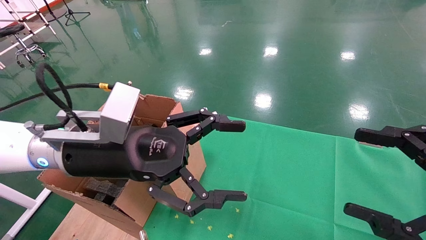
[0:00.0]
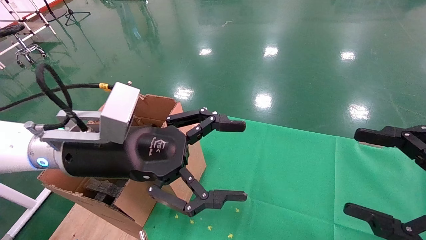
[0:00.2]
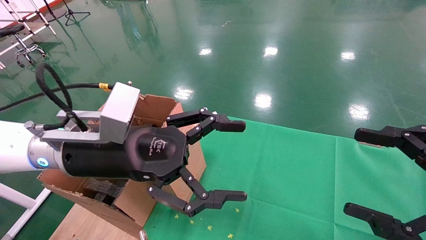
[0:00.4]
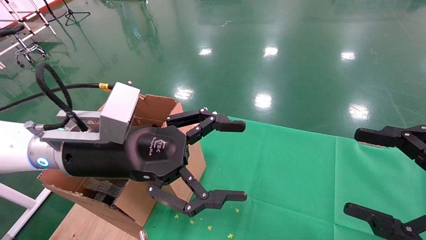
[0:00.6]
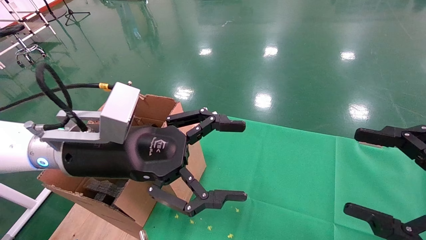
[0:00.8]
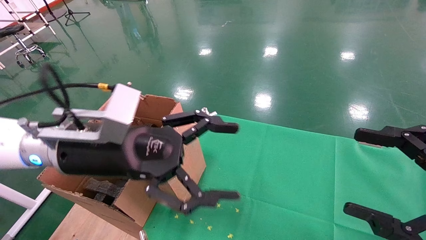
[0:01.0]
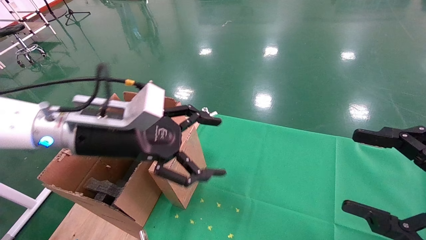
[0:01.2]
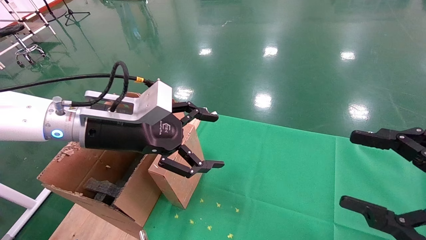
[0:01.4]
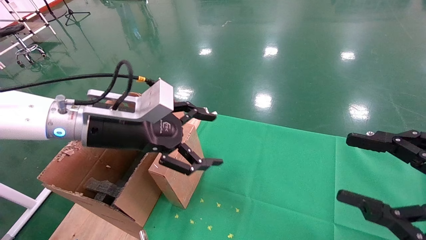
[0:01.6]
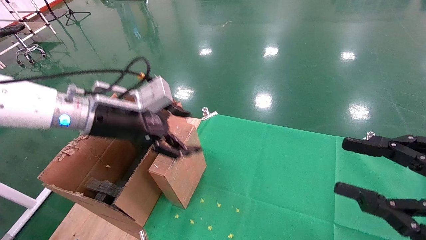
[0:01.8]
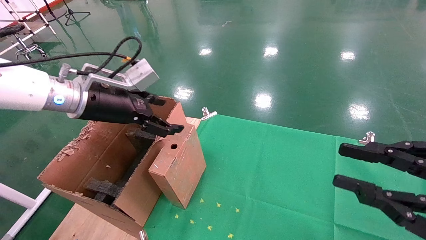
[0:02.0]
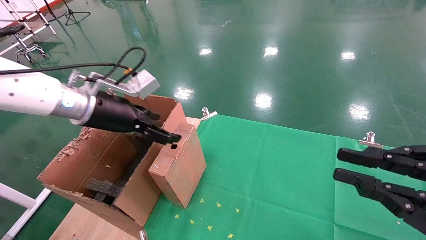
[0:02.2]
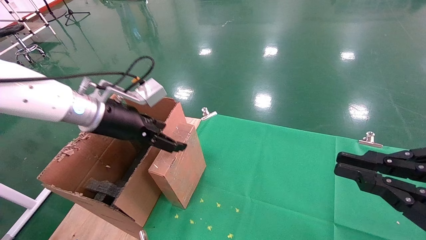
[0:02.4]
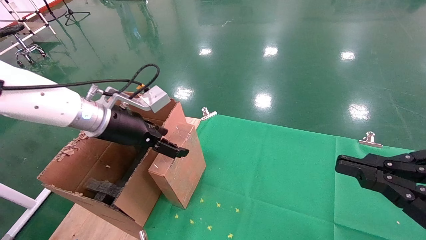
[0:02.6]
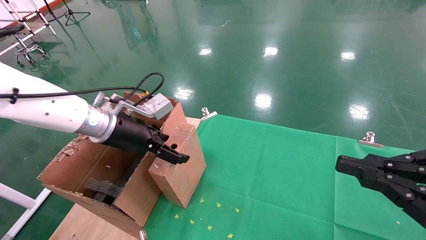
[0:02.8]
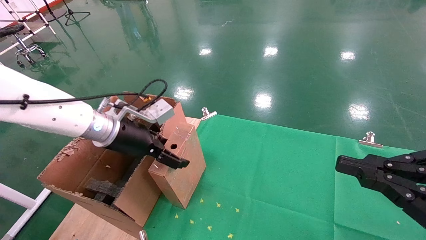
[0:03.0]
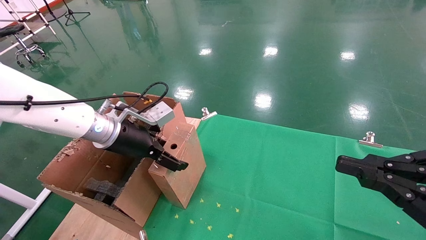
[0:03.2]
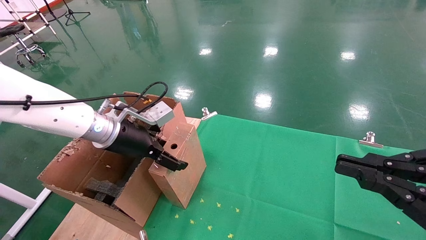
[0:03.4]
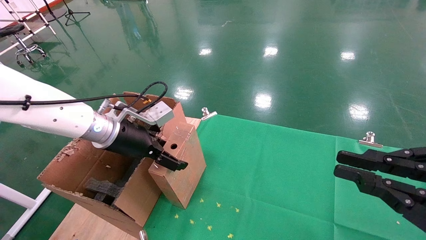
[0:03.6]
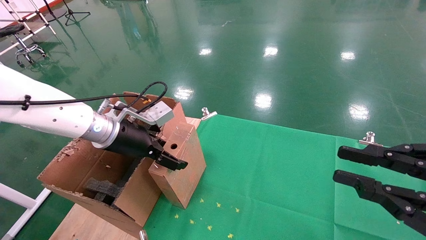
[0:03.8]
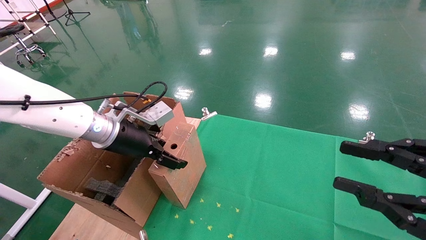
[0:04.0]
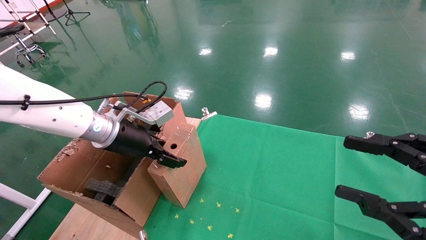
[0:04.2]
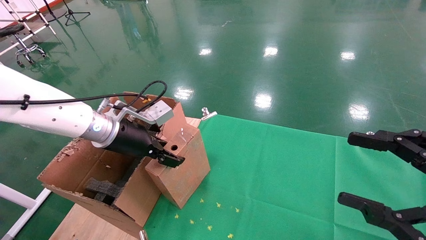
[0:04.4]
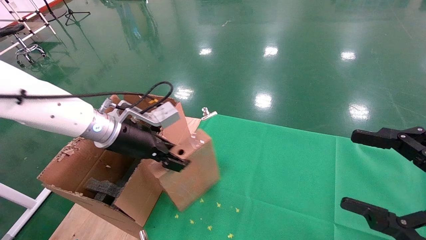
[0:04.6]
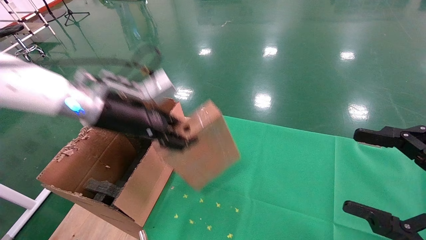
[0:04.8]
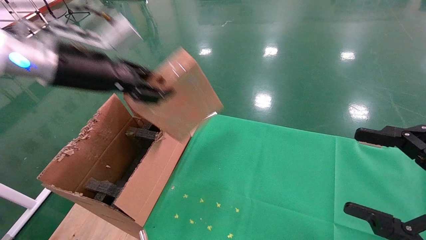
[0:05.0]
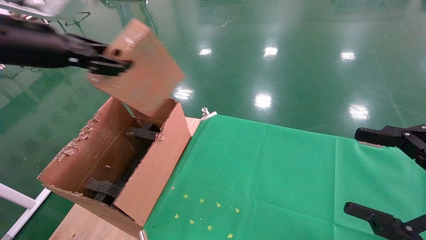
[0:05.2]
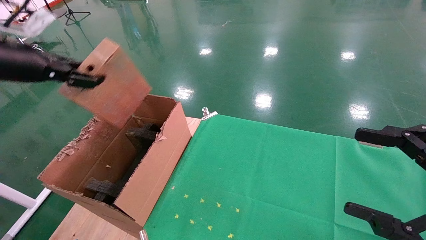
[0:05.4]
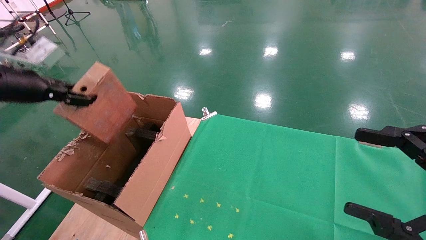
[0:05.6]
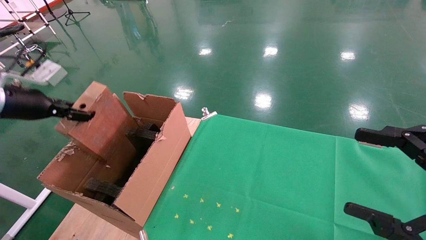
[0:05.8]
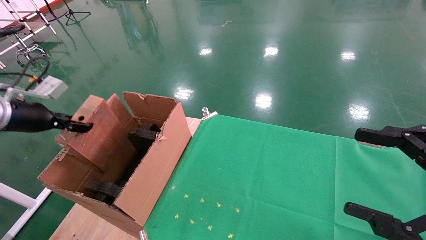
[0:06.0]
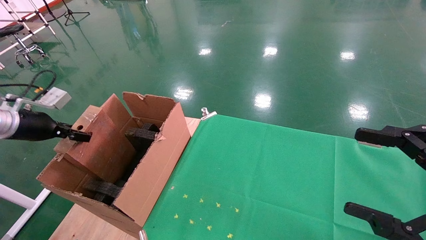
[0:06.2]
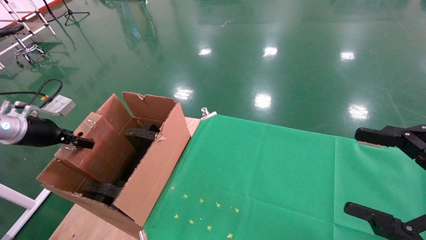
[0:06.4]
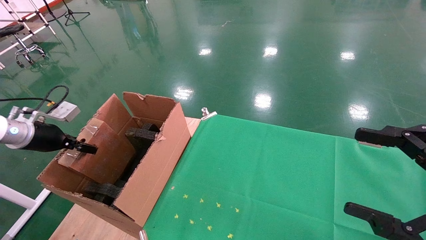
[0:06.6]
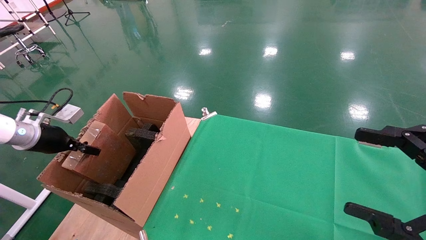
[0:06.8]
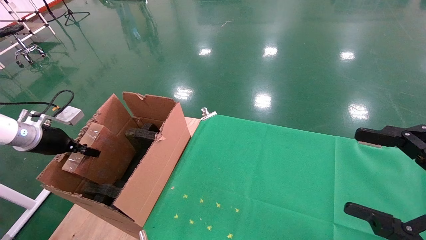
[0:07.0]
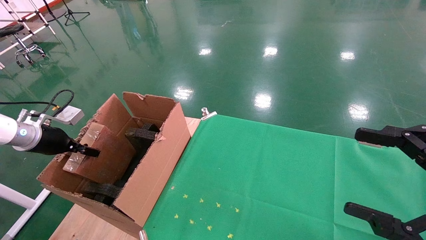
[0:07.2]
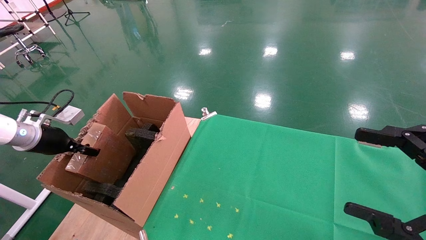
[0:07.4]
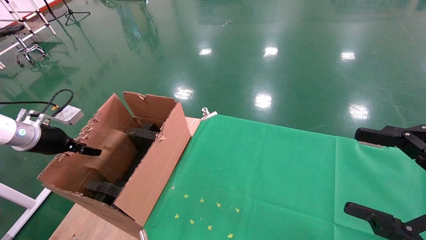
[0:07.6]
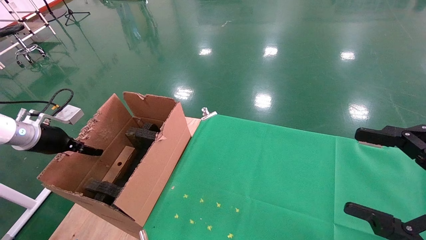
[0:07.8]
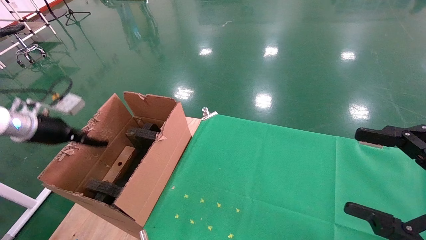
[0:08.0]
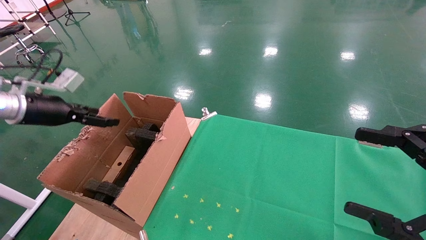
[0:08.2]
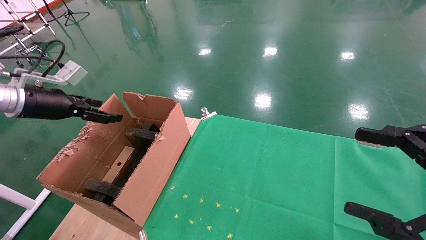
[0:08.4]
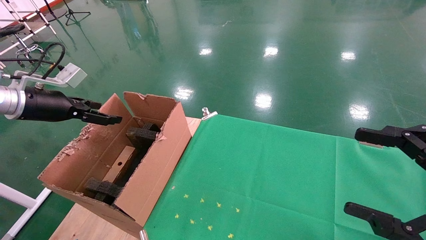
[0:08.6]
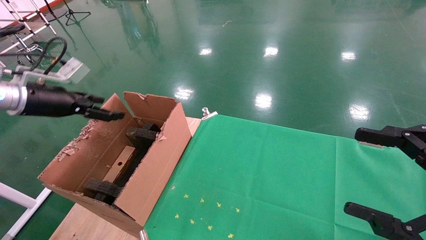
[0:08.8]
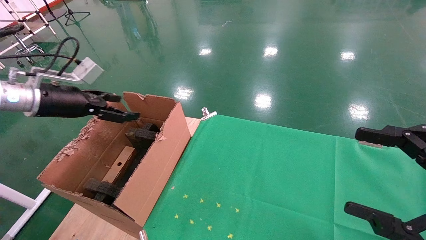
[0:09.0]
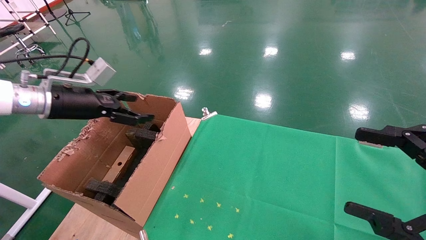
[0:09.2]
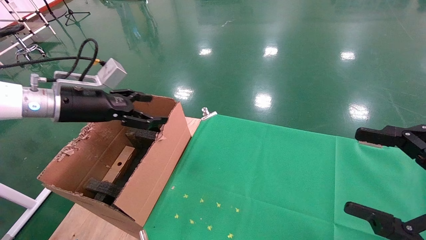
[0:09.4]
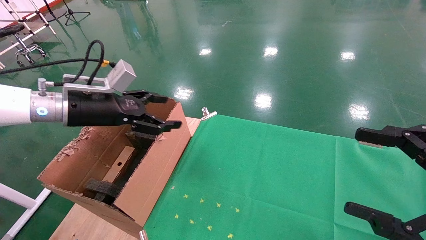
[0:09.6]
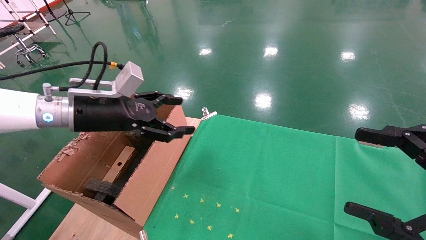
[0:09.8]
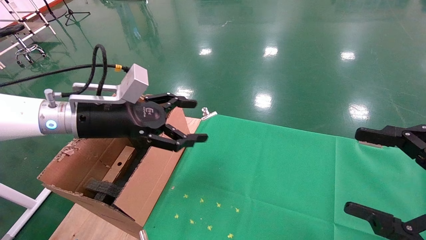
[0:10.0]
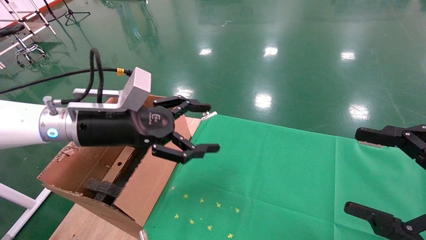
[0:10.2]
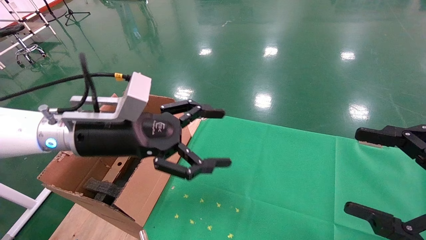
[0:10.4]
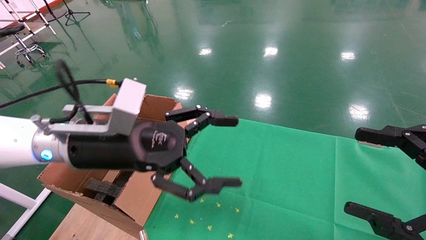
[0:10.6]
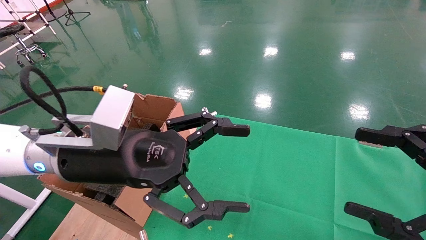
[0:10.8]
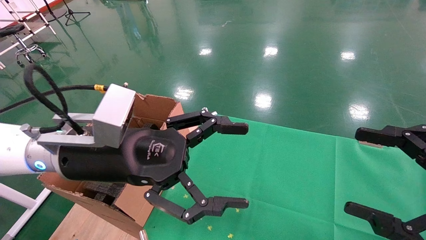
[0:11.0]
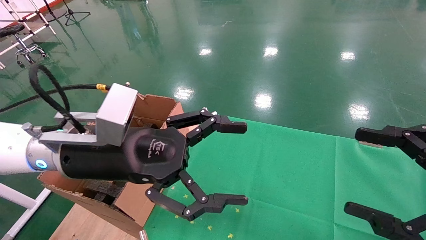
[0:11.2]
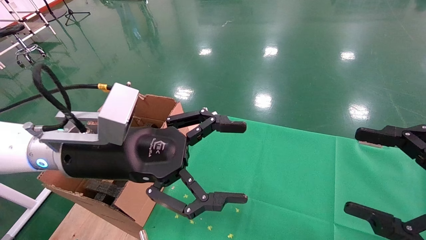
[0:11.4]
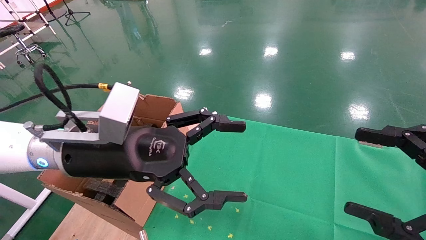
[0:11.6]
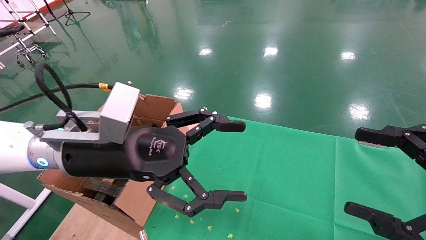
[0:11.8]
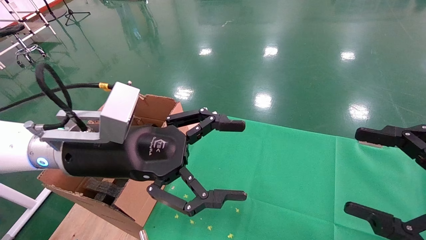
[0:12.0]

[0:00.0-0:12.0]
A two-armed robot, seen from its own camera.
Task of the whole recording: using a robotic arm to pick up a cardboard box and palace it the carton.
Step, 0:01.2 to 0:04.6: Pick up the mouse and the power cord paper box.
Step, 0:04.8 to 0:08.4: Place the mouse and the power cord paper box into the container.
0:00.0 to 0:01.6: The left gripper goes roughly 5 cm forward.
0:01.6 to 0:03.0: The right gripper closes up. Meanwhile the left gripper heads forward, covering about 5 cm.
0:03.0 to 0:04.4: The left gripper closes. The right gripper opens up.
0:04.4 to 0:06.0: The left gripper moves to the left, about 25 cm. Meanwhile the right gripper opens.
0:06.0 to 0:07.6: The left gripper goes about 5 cm downward.
0:07.6 to 0:09.0: The left gripper travels to the right and upward by about 15 cm, and opens.
0:09.0 to 0:10.4: The left gripper moves to the right, some 20 cm.
0:10.4 to 0:12.0: There are only small adjustments of the grippers.

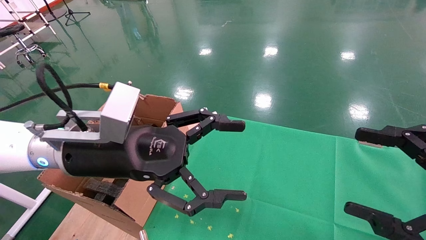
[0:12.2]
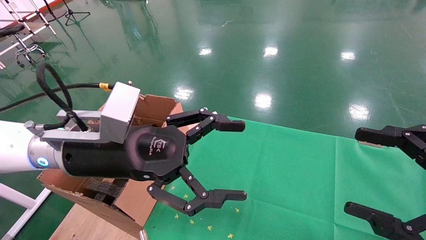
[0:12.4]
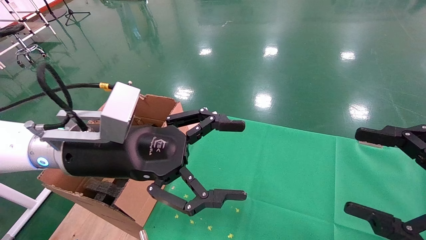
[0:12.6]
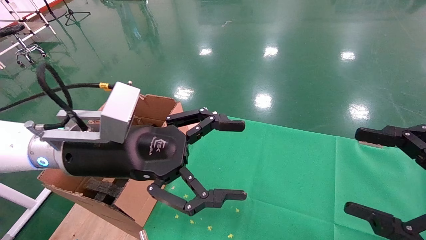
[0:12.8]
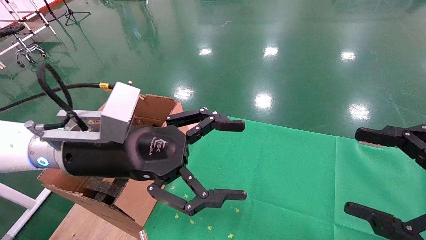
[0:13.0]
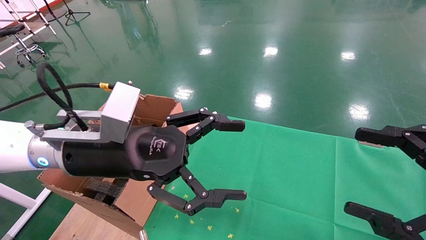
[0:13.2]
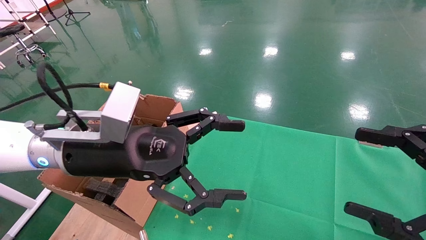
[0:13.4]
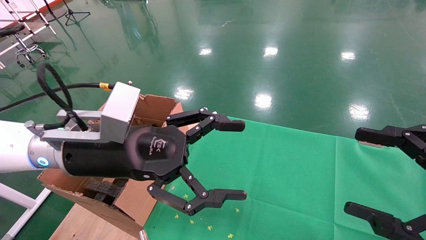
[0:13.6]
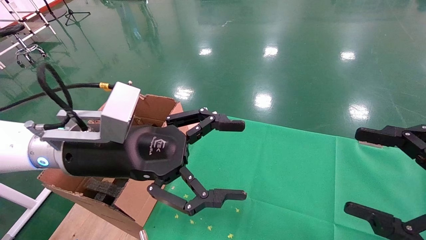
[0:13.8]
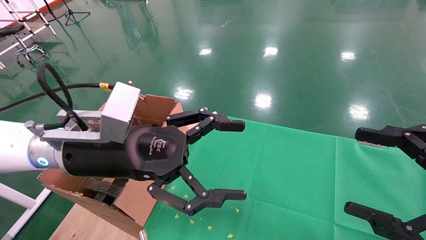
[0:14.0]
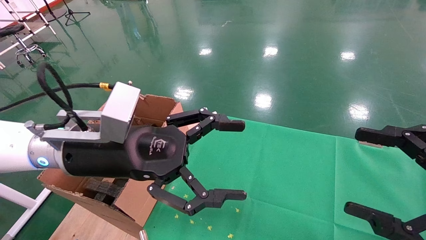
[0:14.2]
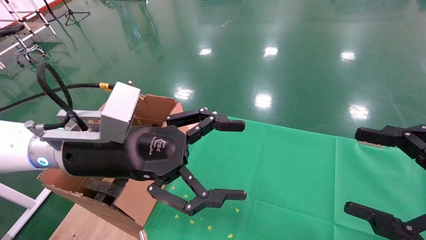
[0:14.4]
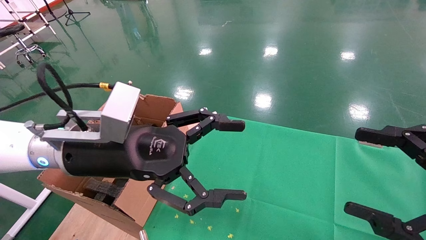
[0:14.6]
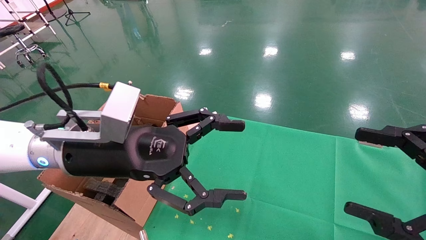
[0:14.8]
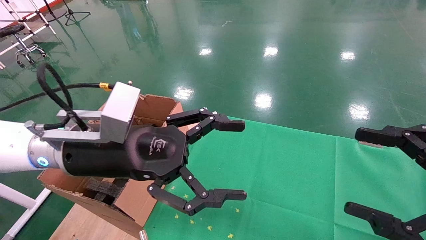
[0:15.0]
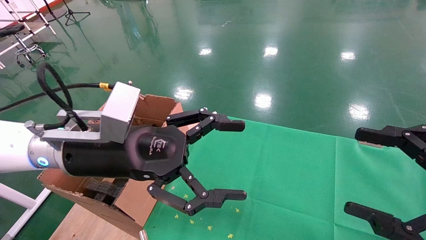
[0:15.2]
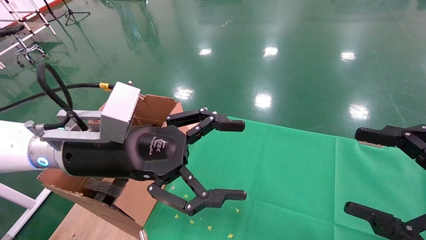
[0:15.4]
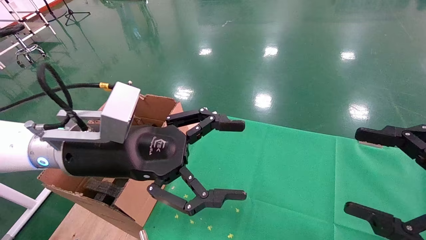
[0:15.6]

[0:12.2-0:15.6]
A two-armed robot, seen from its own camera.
Task of the whole recording: using a robotic arm to pick up a cardboard box and palace it the carton.
0:12.2 to 0:15.6: Both grippers stay about where they are.

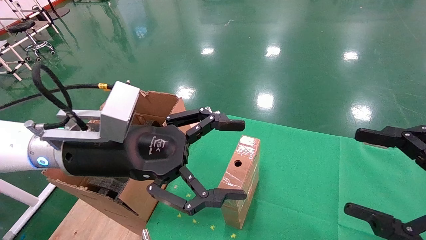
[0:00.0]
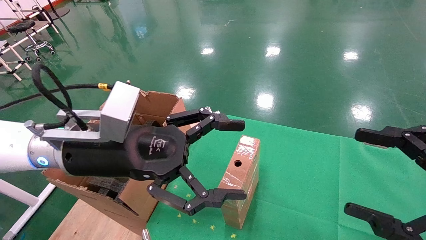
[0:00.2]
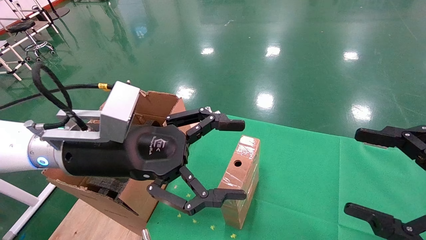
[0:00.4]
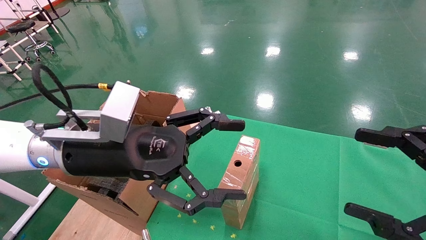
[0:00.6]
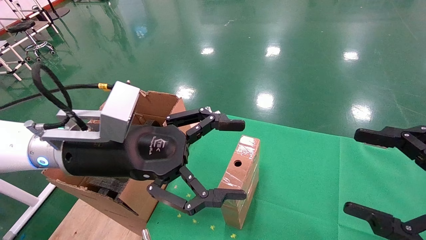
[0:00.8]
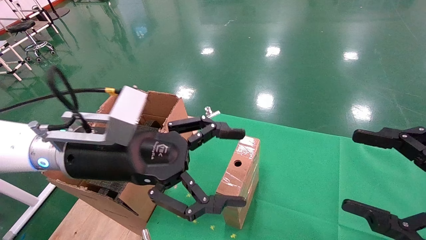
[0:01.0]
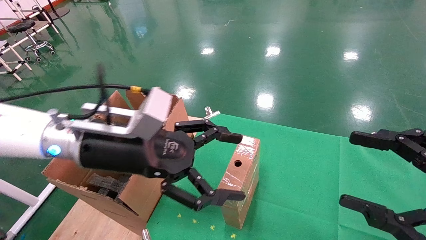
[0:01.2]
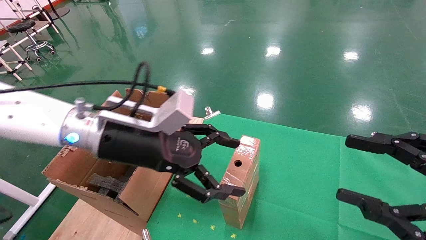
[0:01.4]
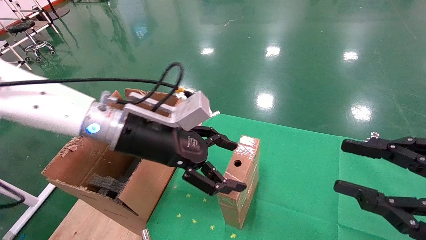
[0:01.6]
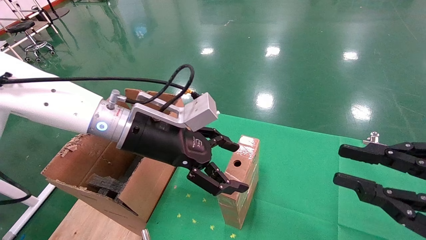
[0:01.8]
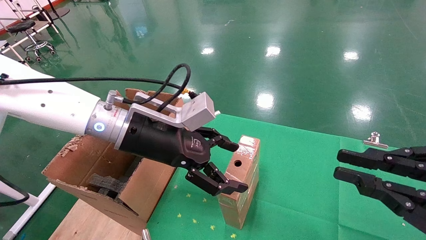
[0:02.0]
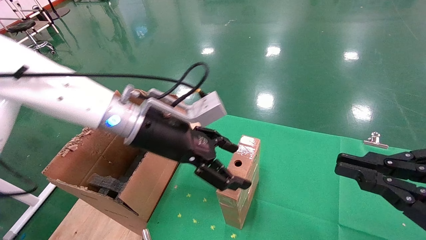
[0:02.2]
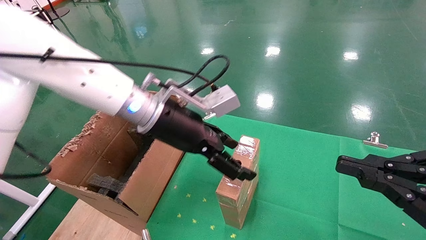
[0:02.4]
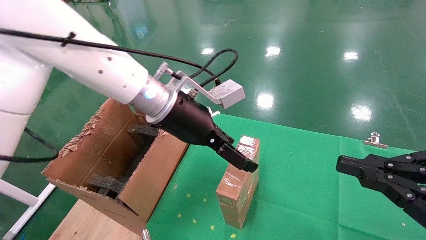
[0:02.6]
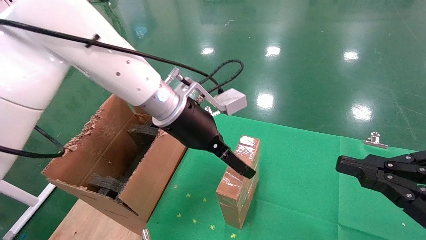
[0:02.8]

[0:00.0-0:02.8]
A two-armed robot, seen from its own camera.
Task of the whole recording: using a robotic arm to pick up a cardboard box and palace it the carton.
0:01.4 to 0:02.8: The left gripper shifts roughly 10 cm to the right and forward. The right gripper closes its fingers.
